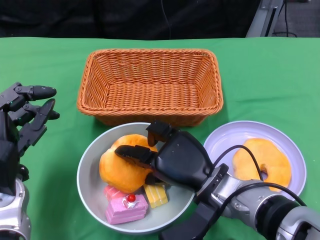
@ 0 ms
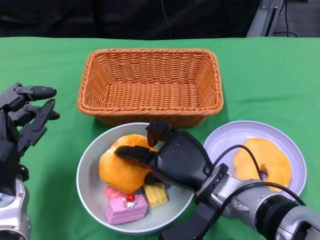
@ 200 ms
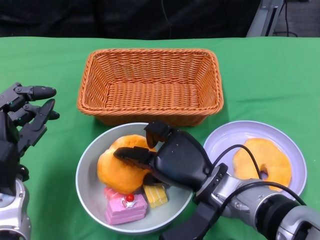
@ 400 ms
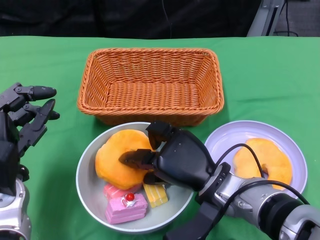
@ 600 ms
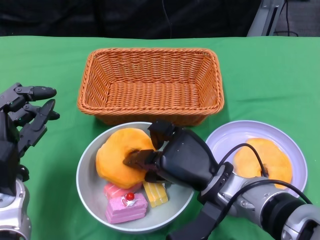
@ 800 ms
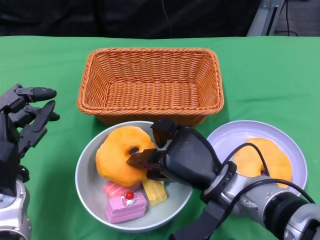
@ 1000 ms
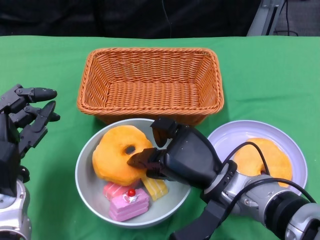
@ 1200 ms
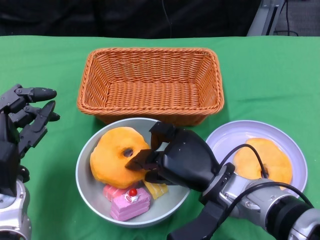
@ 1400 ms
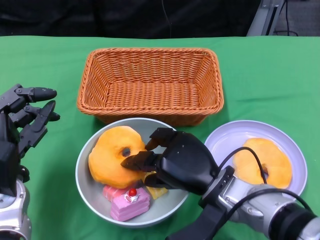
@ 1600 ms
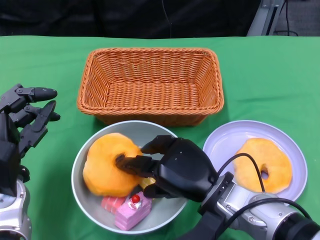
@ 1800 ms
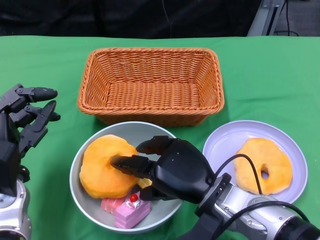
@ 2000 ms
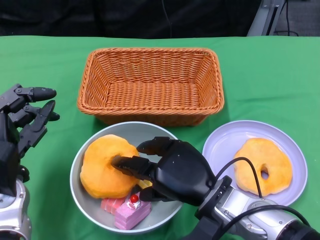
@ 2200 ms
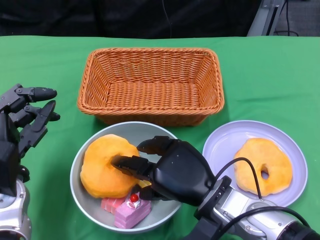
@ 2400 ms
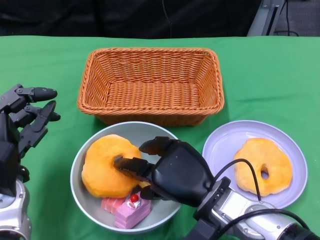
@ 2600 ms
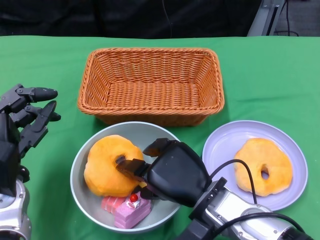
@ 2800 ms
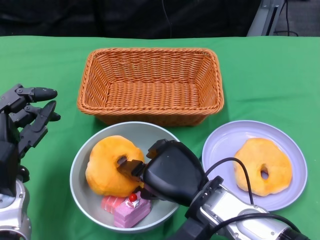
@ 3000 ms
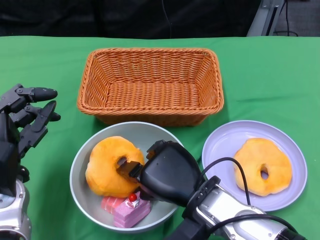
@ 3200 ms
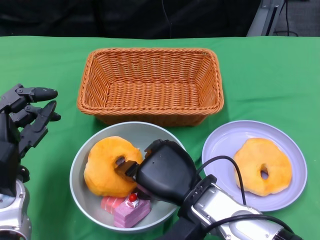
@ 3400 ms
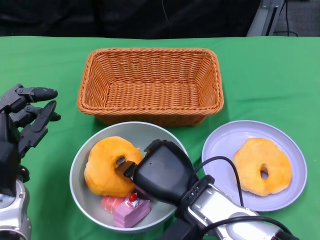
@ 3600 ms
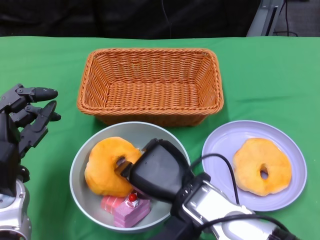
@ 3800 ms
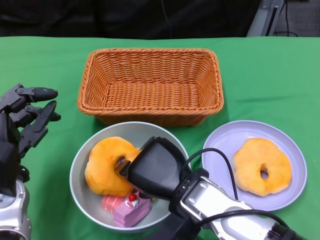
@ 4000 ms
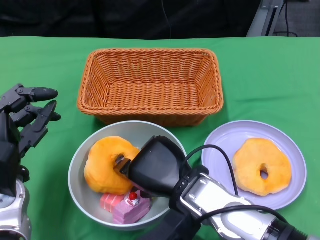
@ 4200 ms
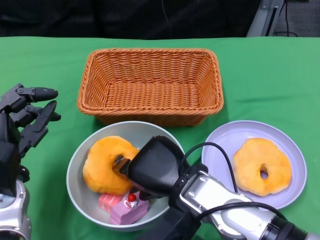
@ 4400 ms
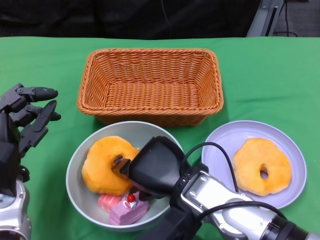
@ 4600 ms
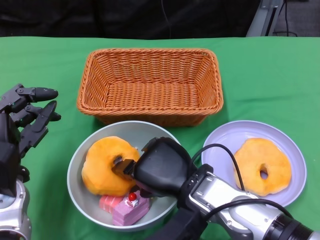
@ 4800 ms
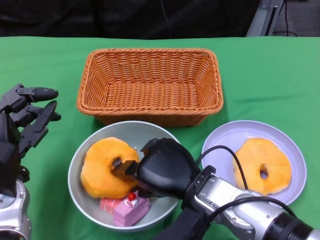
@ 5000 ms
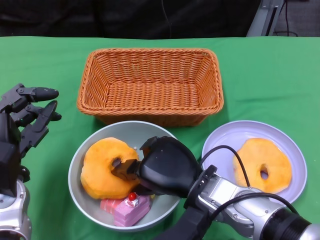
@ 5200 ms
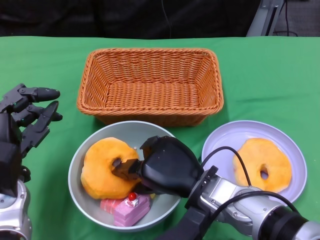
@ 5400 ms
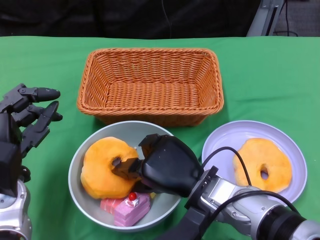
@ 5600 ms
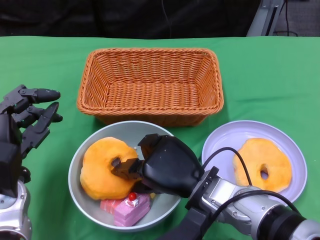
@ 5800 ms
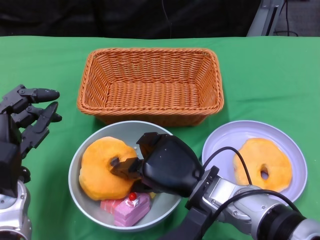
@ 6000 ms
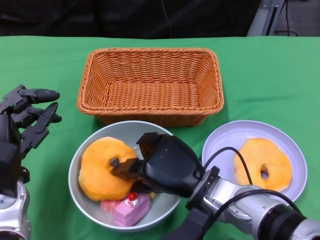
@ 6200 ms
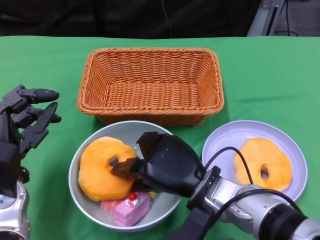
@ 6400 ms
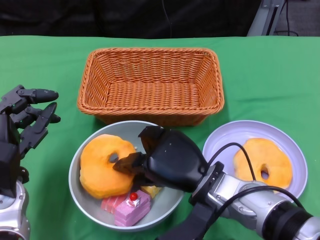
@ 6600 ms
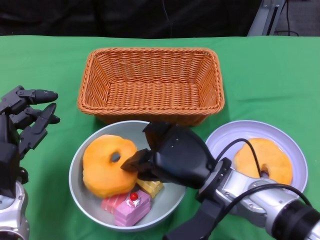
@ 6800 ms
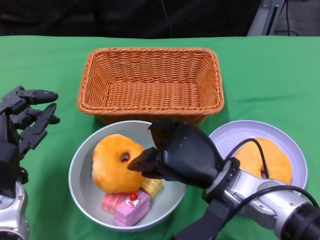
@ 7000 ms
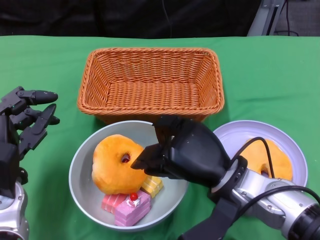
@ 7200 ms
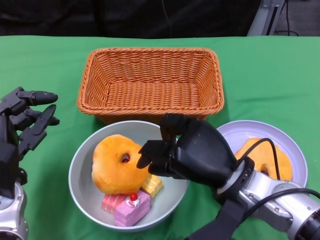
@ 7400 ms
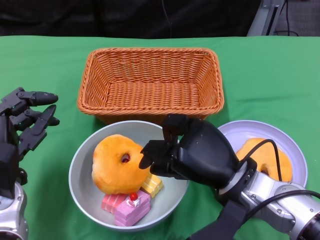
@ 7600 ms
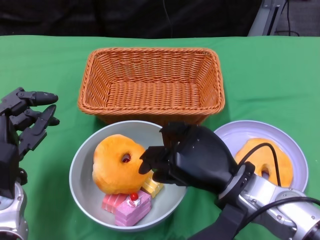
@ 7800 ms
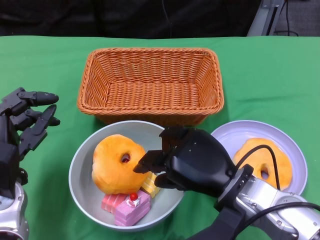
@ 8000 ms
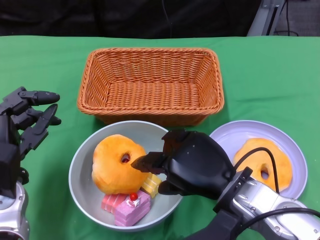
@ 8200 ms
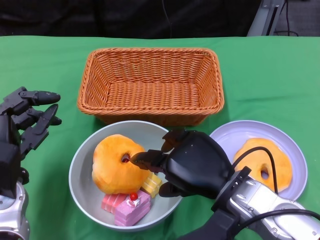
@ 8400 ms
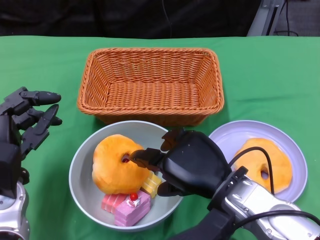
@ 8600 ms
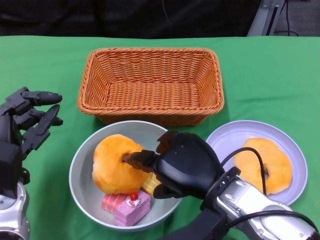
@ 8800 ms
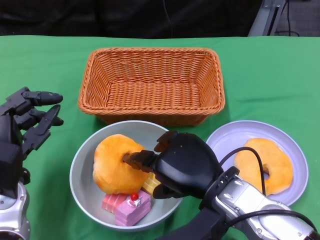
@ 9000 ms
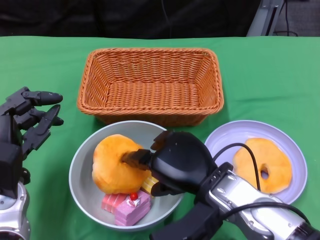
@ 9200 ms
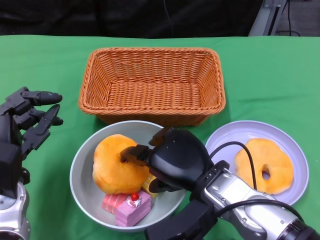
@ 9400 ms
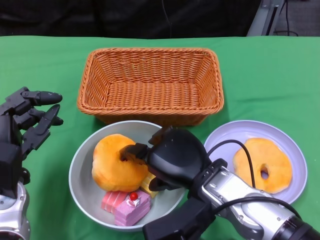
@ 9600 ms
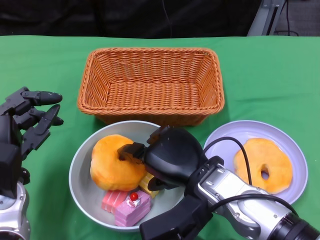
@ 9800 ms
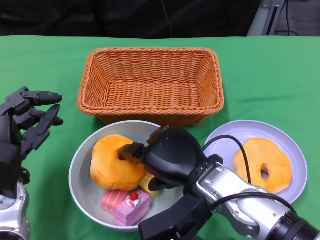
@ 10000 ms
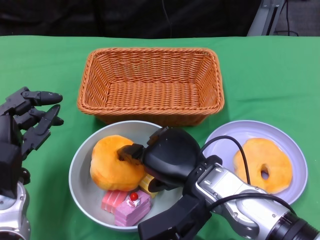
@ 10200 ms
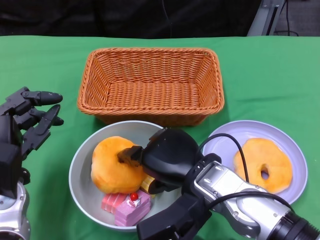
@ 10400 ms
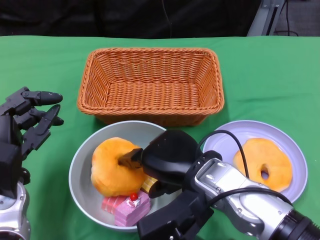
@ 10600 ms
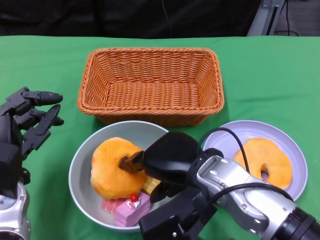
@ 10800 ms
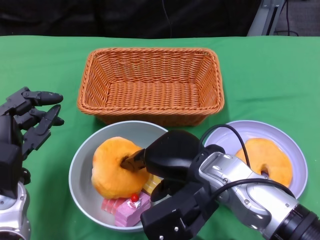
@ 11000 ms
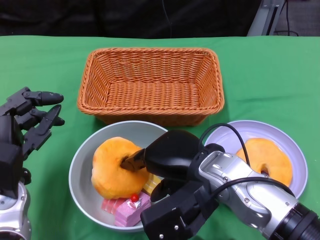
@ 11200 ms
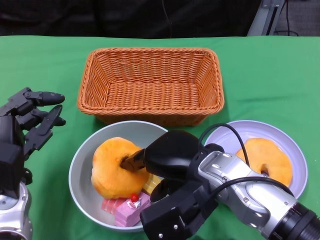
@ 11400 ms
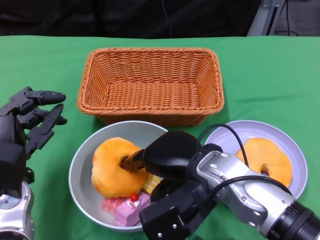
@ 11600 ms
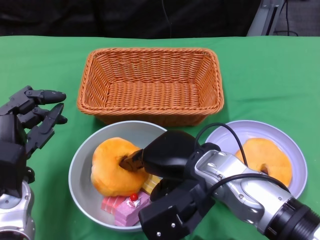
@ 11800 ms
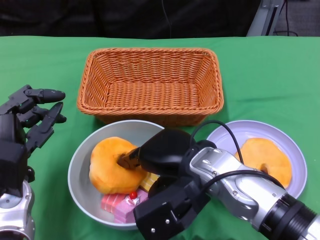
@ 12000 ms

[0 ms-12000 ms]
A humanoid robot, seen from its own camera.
0 ms to 3000 ms: The hands stay close to where they were, moving slightly.
3000 ms to 4400 ms: The hands move only a little.
6000 ms to 7600 ms: The right hand ends up about 5 cm from where it was.
9000 ms to 10400 ms: The hands stay close to where they were, moving slightly.
10400 ms to 12000 ms: There are only small adjustments of the hands.

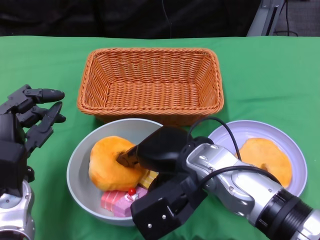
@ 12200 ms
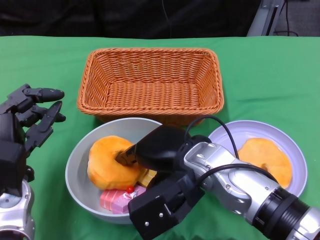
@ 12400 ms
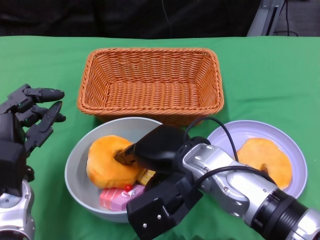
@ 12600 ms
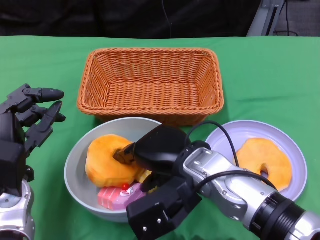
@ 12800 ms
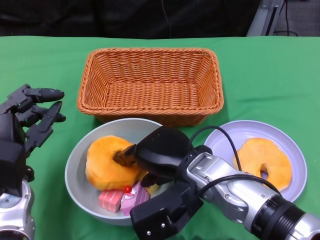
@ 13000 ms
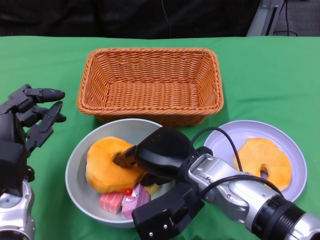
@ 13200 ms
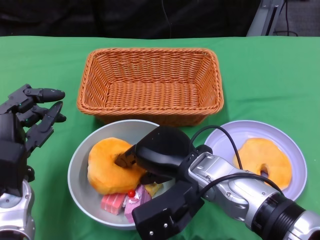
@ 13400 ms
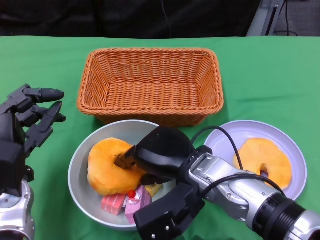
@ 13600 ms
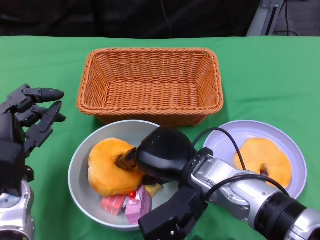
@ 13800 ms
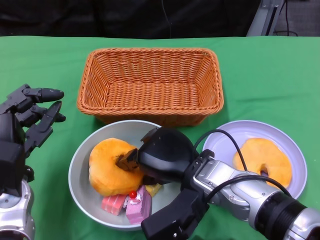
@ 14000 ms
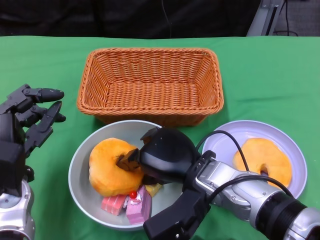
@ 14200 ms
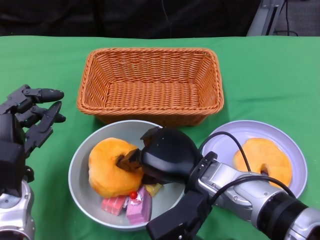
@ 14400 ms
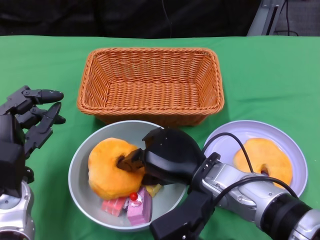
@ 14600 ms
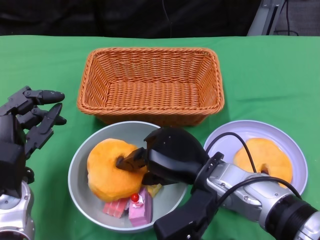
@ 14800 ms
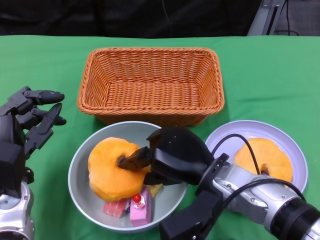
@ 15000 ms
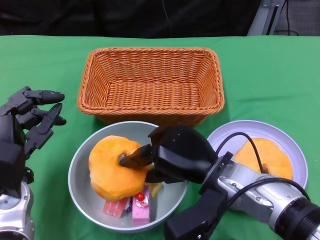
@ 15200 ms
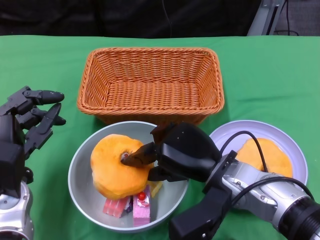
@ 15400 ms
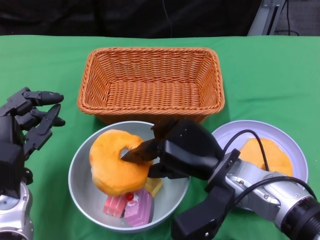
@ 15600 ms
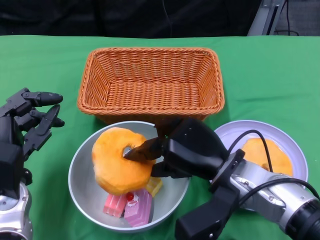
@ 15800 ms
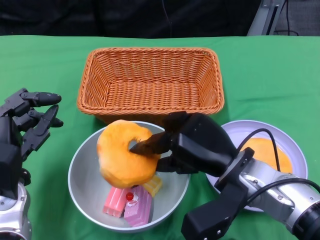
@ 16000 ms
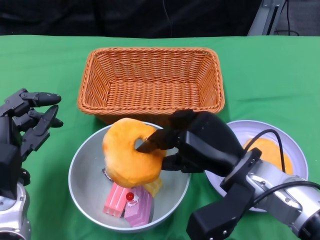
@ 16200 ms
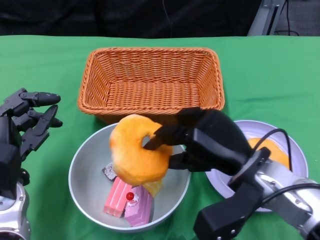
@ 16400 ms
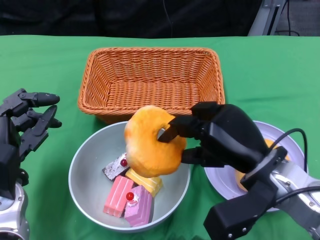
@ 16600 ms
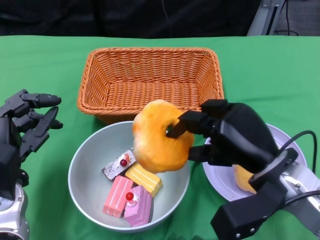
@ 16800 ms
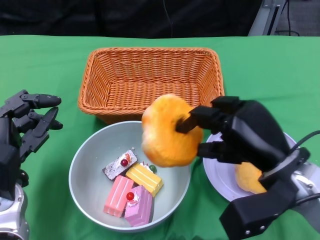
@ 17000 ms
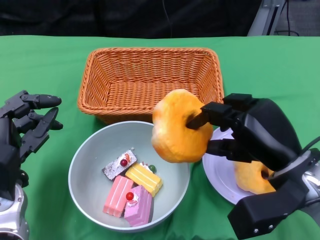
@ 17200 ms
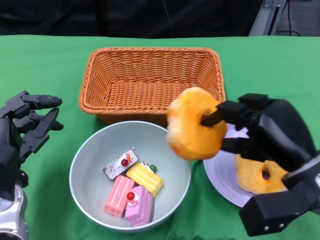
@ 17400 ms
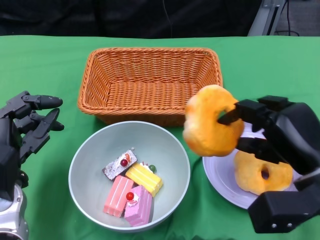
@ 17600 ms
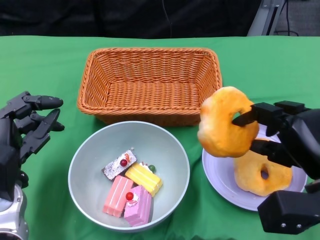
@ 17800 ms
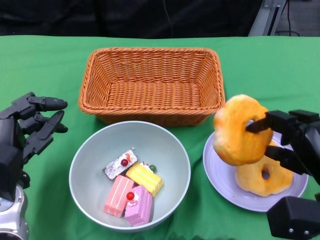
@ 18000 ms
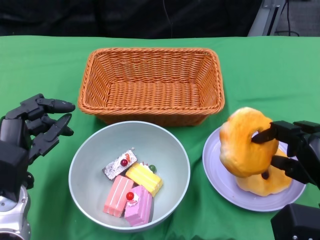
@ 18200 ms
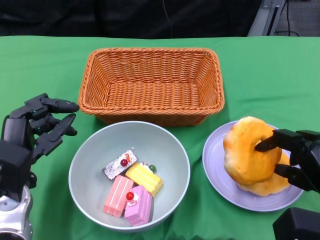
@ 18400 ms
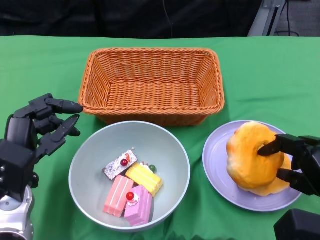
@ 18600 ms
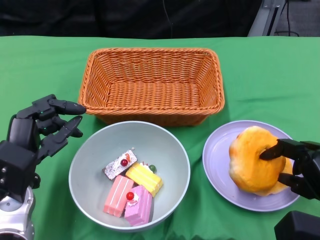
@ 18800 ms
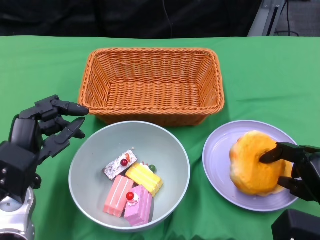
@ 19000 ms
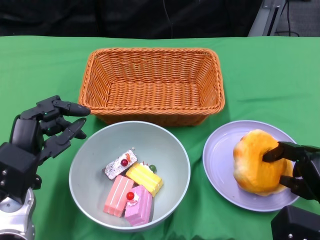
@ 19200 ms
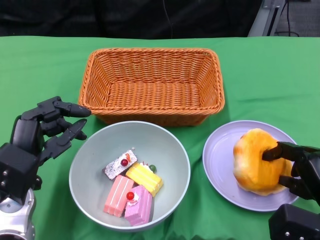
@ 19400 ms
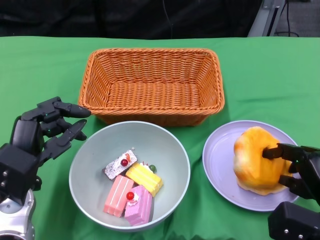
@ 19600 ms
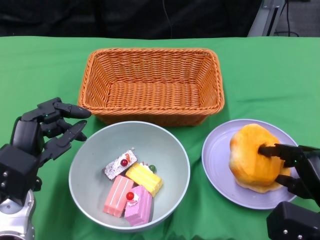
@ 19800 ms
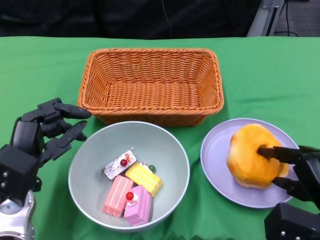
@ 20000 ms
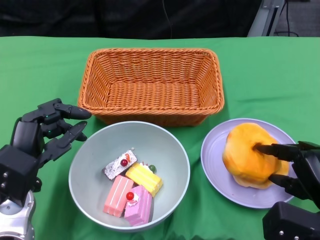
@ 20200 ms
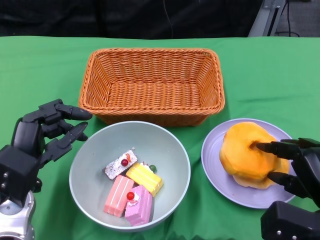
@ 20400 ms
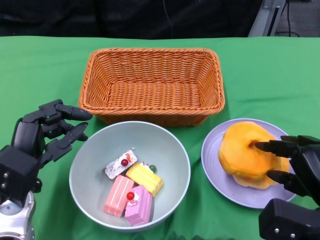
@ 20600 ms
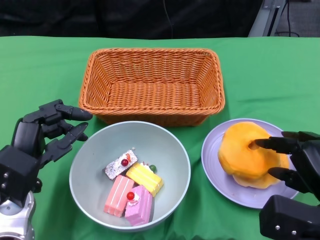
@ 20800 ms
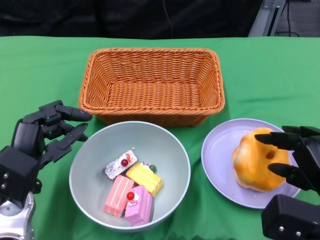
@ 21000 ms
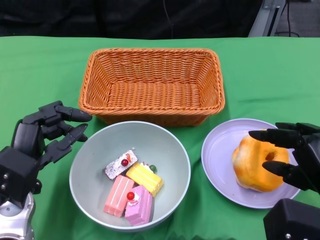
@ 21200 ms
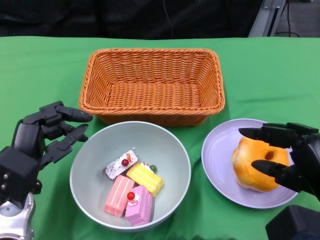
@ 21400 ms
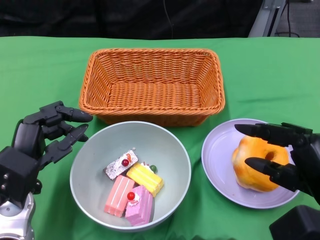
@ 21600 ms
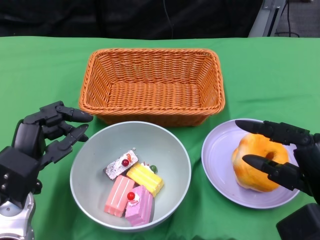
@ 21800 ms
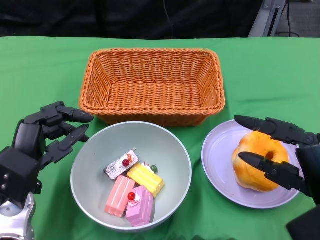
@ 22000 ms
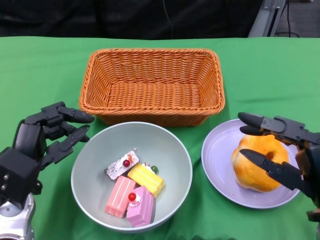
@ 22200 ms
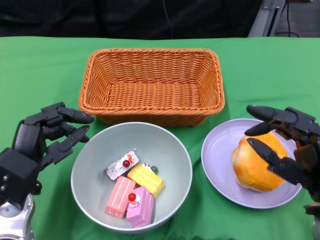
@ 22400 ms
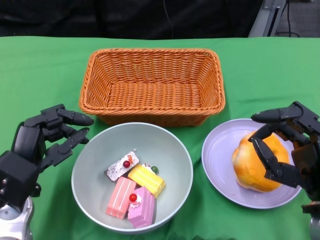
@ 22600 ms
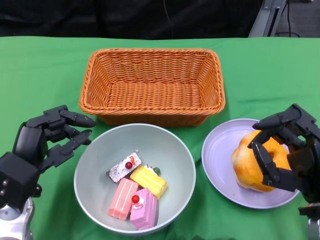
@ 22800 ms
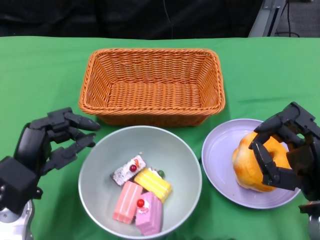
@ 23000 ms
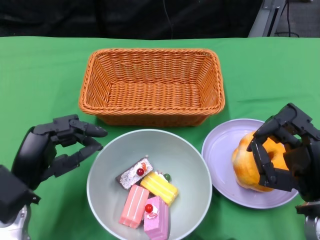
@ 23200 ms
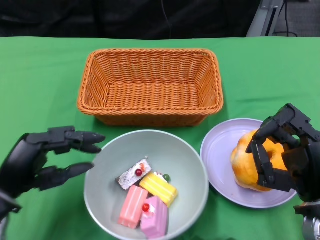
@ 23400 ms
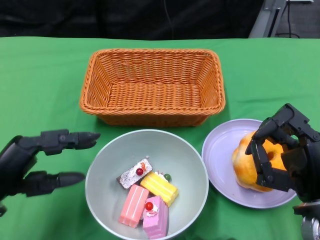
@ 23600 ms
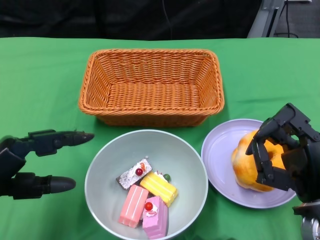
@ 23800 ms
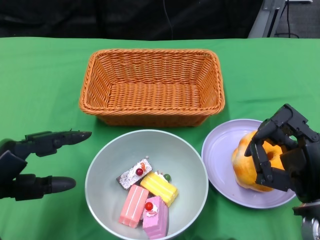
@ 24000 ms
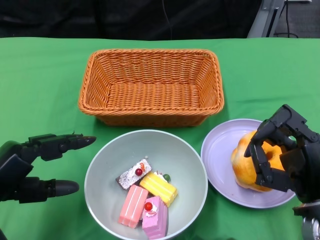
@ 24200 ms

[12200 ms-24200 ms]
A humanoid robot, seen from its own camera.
Step, 12200 ms to 21400 ms: Pick up the bread with the right gripper and place it on the plate.
12200 ms to 13800 ms: The hands move only a little.
15200 ms to 16600 ms: The right hand goes roughly 5 cm to the right.
16600 ms to 18200 ms: The right hand heads to the right, covering roughly 10 cm.
18200 ms to 19800 ms: There are only small adjustments of the hands.
19800 ms to 21200 ms: The right hand moves upward, some 5 cm.
22600 ms to 24200 ms: The left hand shifts some 5 cm to the left.
